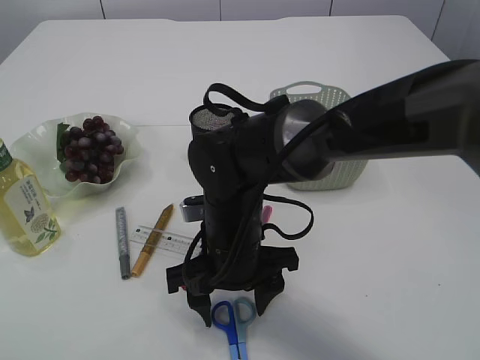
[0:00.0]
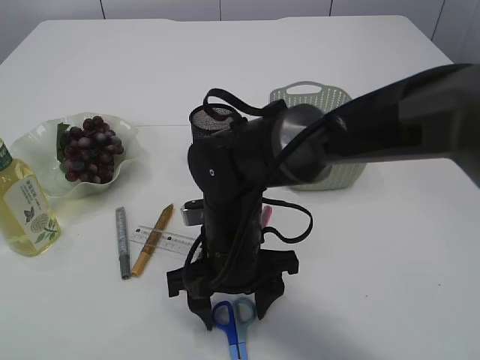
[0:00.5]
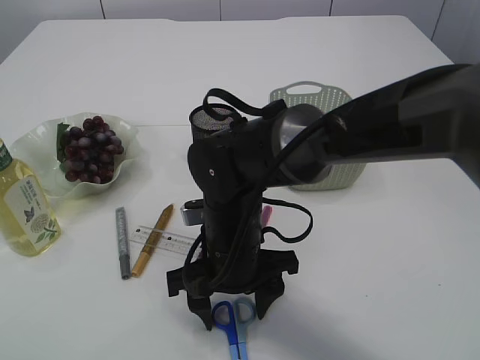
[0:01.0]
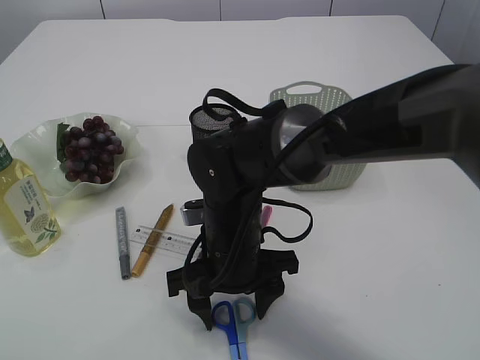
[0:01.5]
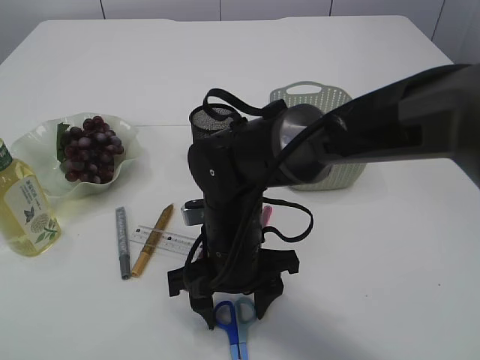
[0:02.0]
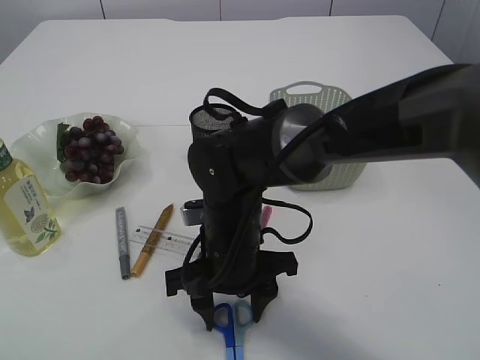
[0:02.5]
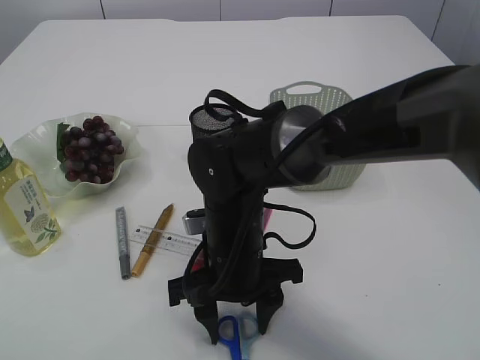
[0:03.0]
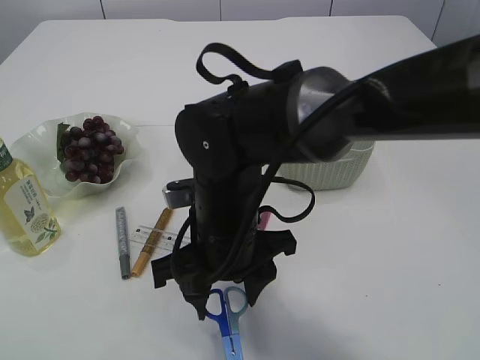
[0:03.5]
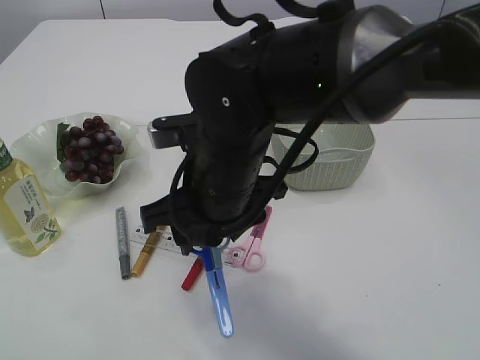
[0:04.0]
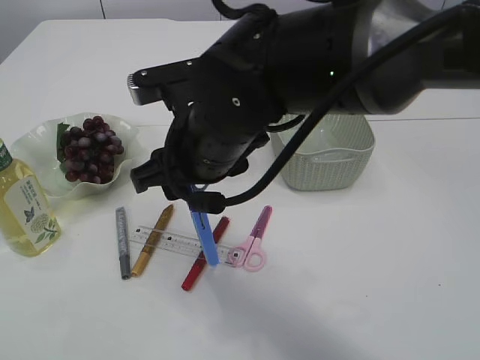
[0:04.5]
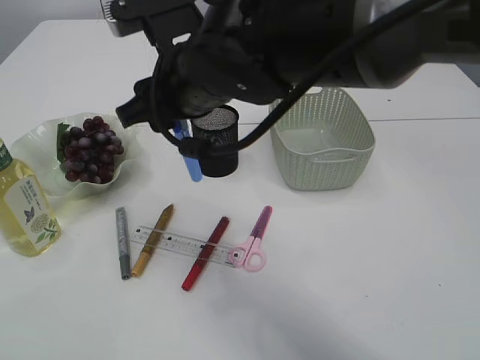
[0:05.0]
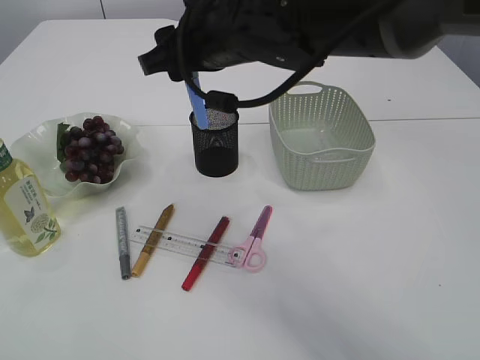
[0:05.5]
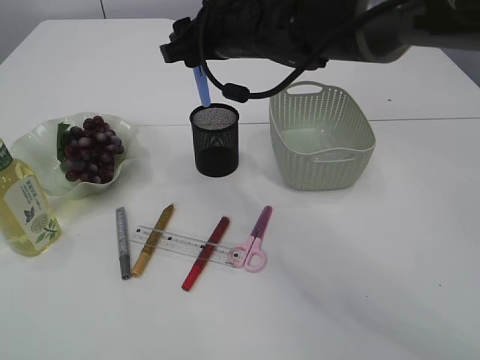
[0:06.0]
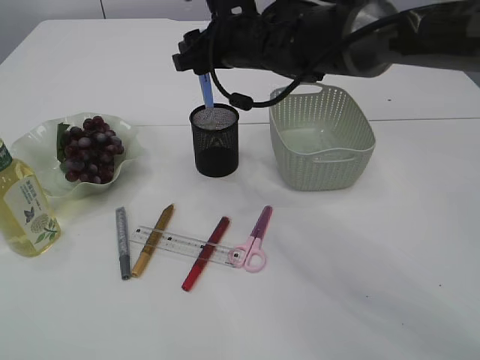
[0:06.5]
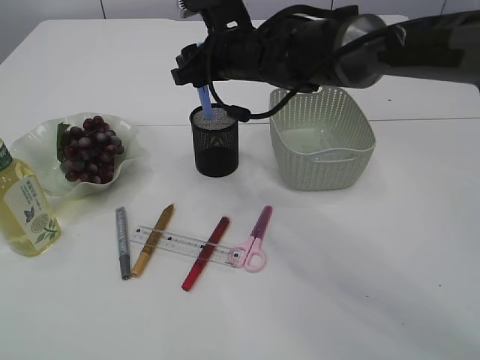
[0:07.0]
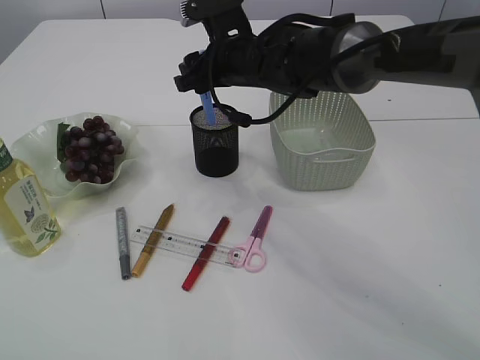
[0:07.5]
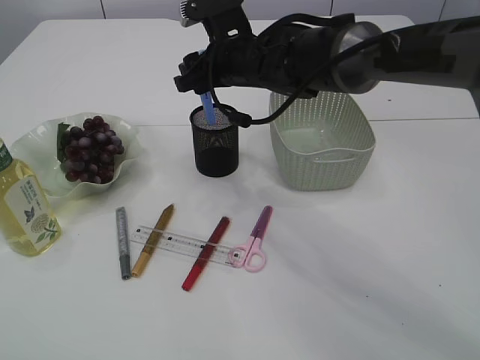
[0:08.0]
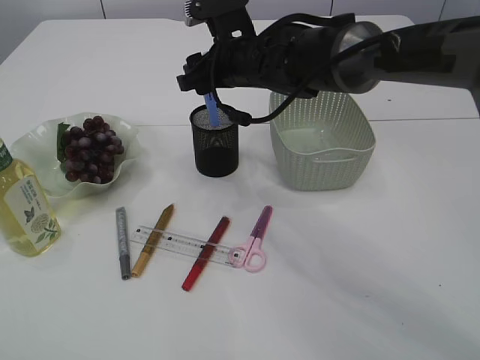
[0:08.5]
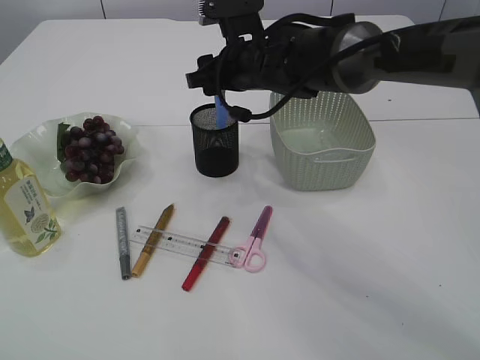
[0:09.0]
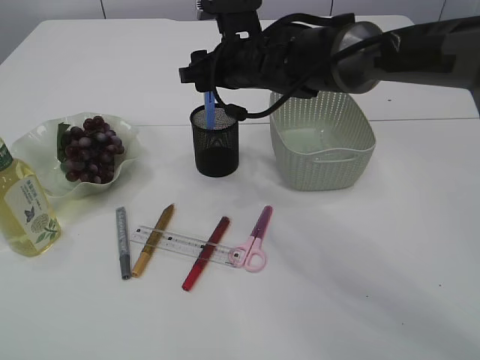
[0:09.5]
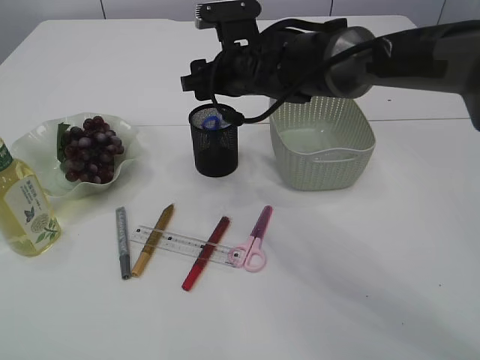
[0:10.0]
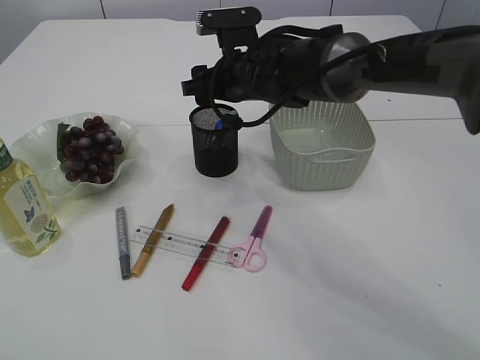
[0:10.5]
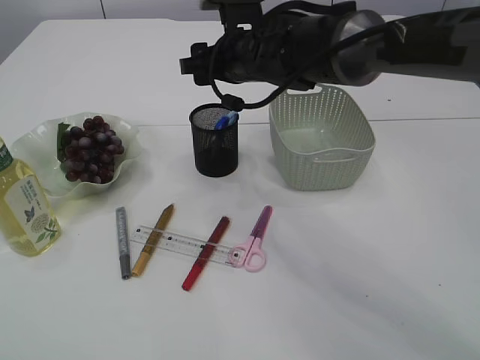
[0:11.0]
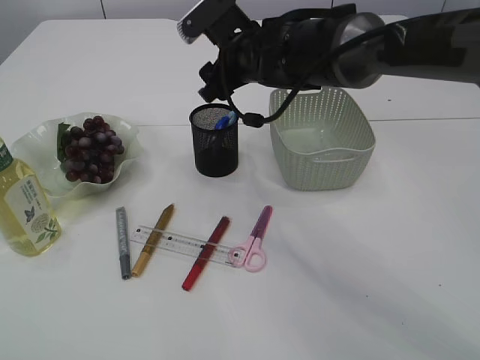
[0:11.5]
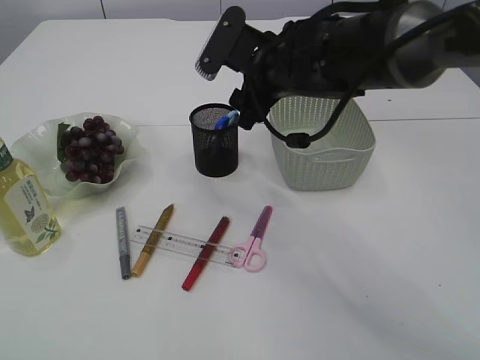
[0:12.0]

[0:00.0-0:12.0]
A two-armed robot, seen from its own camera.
Step, 0:00.0 to 0:03.5: pick up the blue scissors.
Step, 0:04.0 to 0:10.5: Place the blue scissors into the pen holder.
0:00.0 to 0:02.0: The two grippers keep their place.
0:02.0 to 0:04.0: The right gripper travels upward by approximately 10 cm.
0:04.0 to 0:06.0: The right gripper shifts about 15 cm forward and upward.
0:06.0 to 0:08.0: The right gripper travels downward by roughly 5 cm.
0:08.0 to 0:10.0: There are only small adjustments of the grippers.
0:10.0 to 0:12.0: The right gripper moves roughly 5 cm.

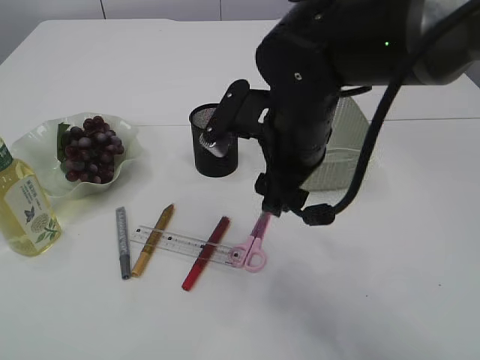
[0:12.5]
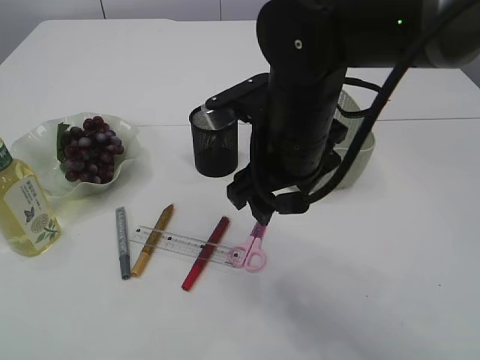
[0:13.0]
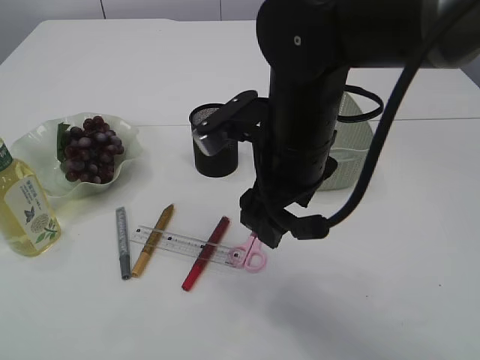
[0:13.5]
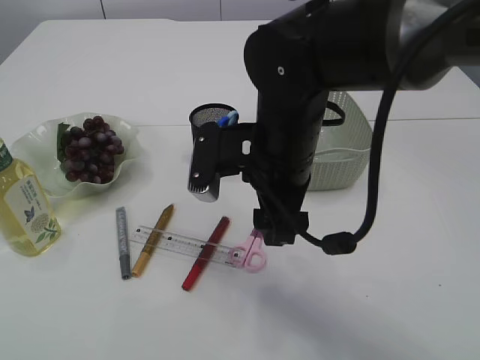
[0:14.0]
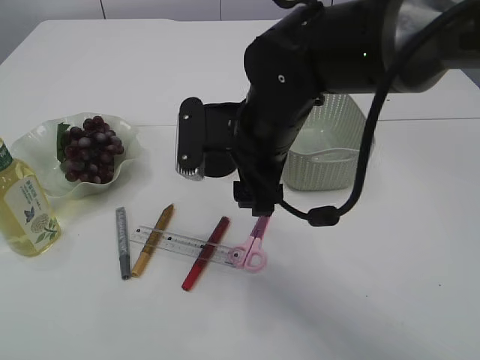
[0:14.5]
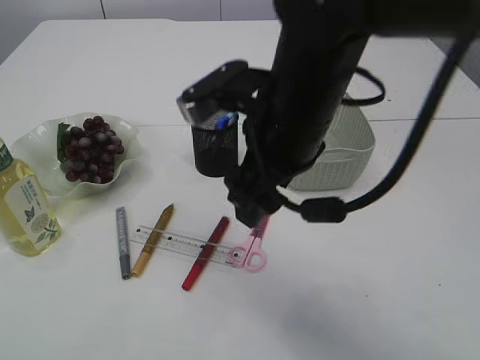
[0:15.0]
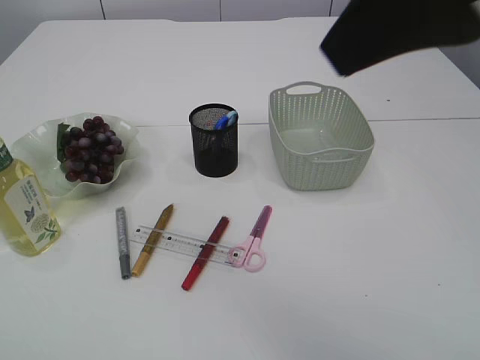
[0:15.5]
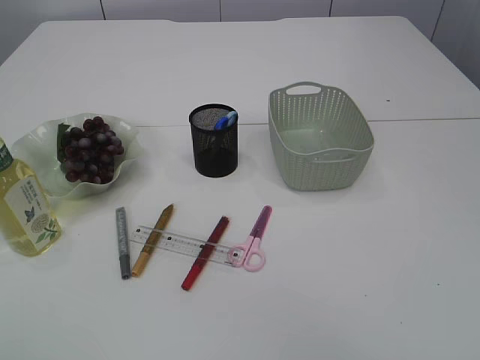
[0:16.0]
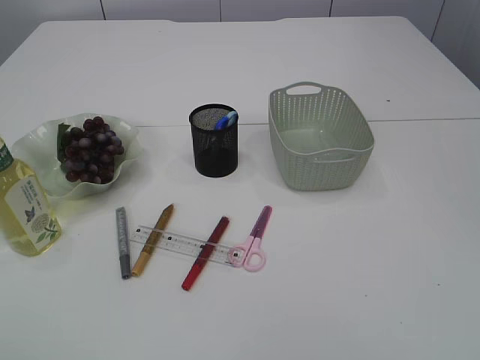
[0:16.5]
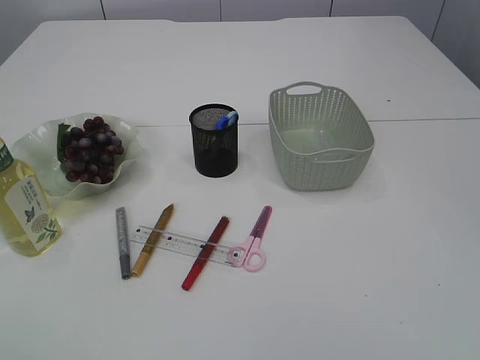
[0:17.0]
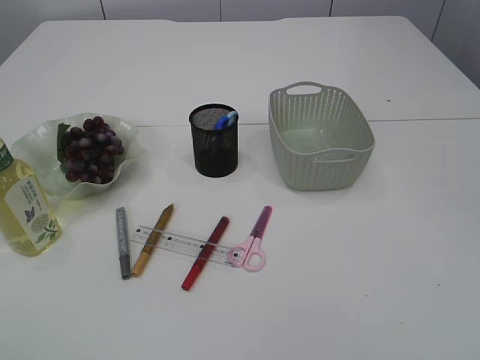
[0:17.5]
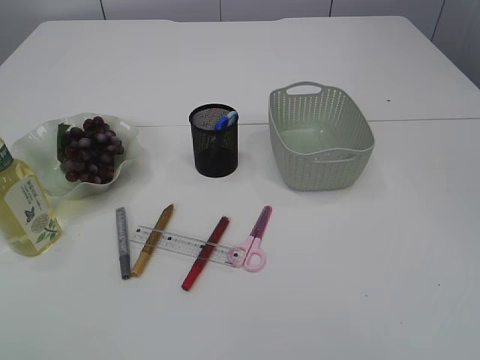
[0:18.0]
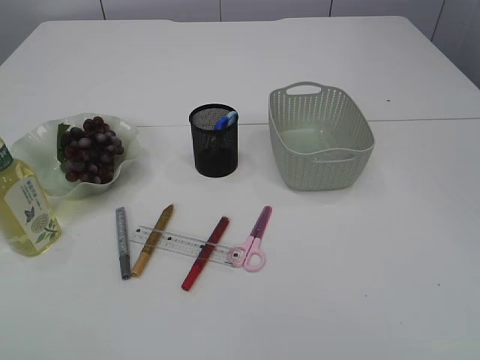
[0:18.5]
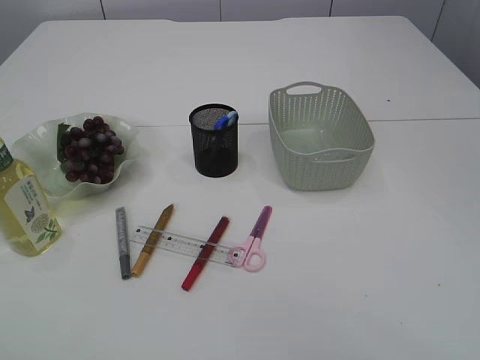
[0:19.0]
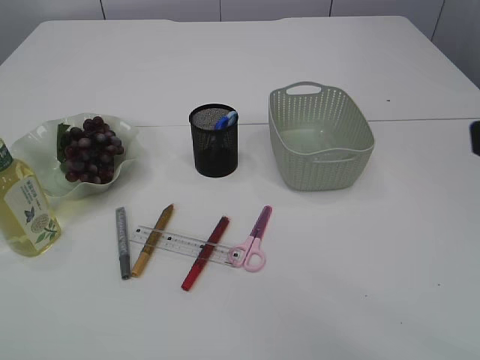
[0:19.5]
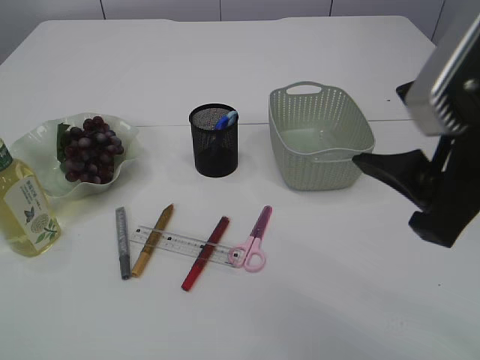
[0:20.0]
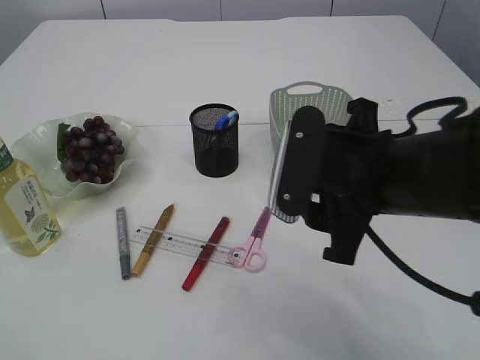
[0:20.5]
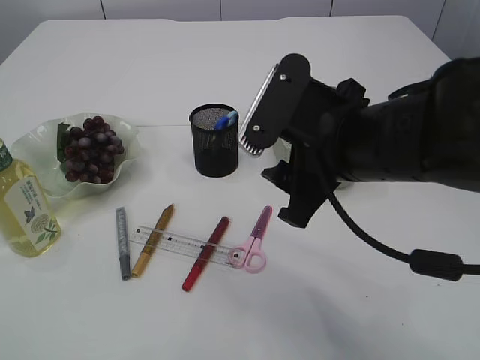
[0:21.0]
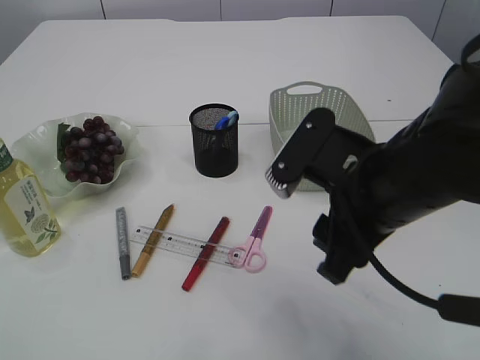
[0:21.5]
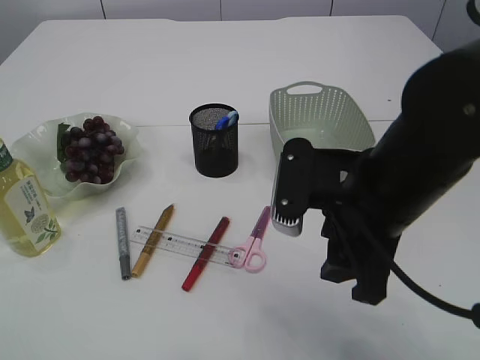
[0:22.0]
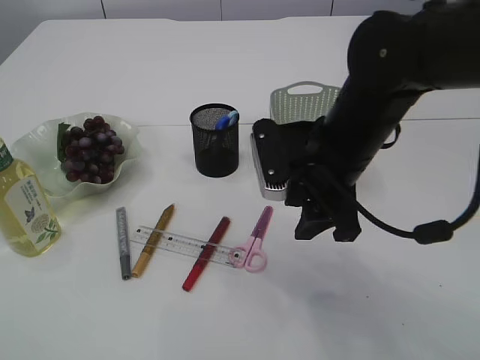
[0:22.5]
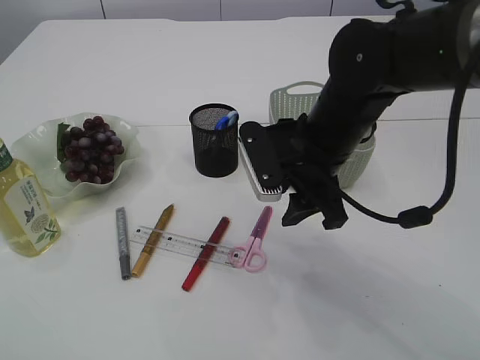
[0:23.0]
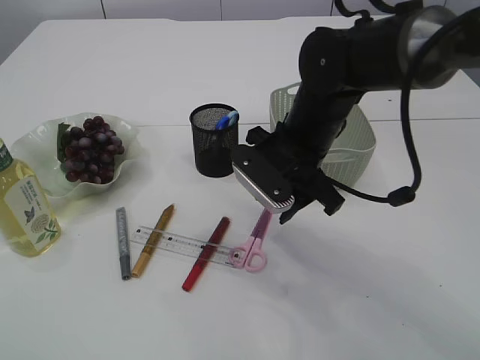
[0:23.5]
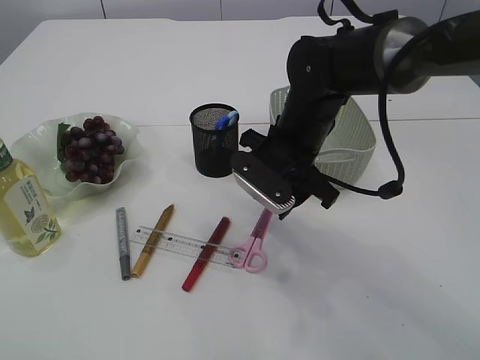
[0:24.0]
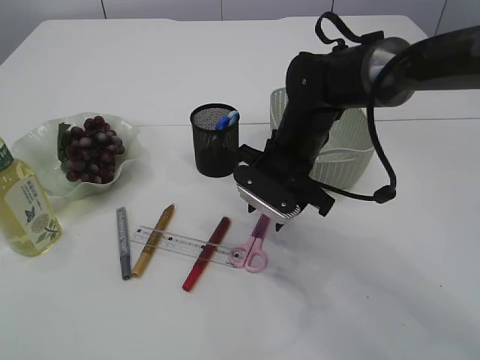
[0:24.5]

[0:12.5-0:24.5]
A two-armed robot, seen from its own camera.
0:14.5 to 0:16.5: The left gripper is displaced backward by approximately 15 cm; the right gripper travels backward, to the right and upward by roughly 40 cm.
0:18.5 to 0:20.5: The right gripper moves forward, to the left and downward, about 30 cm.
0:20.5 to 0:22.5: Both grippers travel together forward, approximately 5 cm.
0:22.5 to 0:24.5: The right gripper travels forward and downward by about 10 cm.

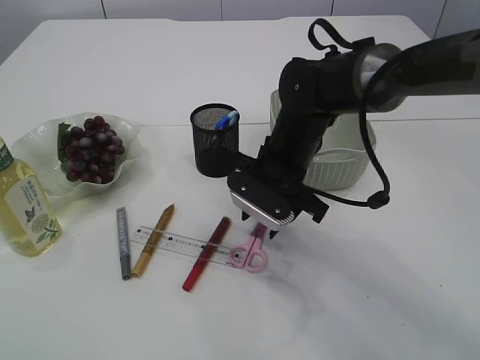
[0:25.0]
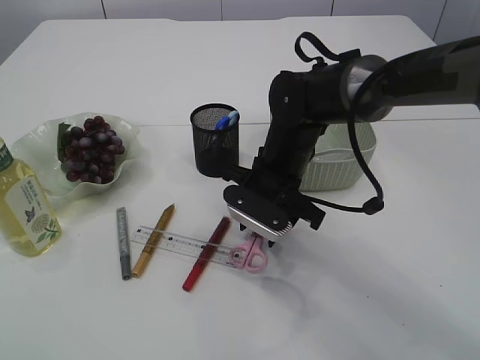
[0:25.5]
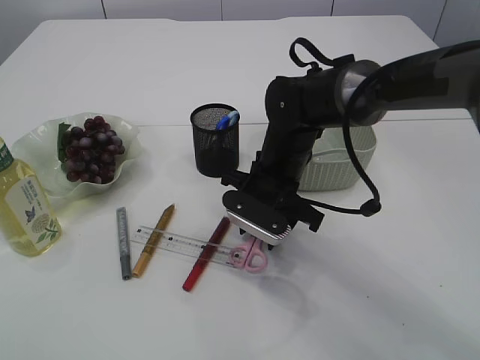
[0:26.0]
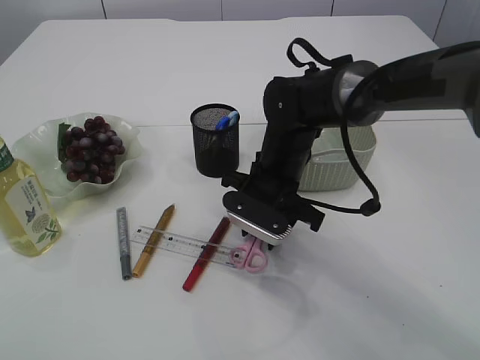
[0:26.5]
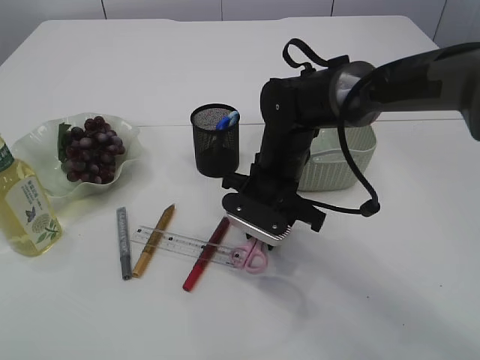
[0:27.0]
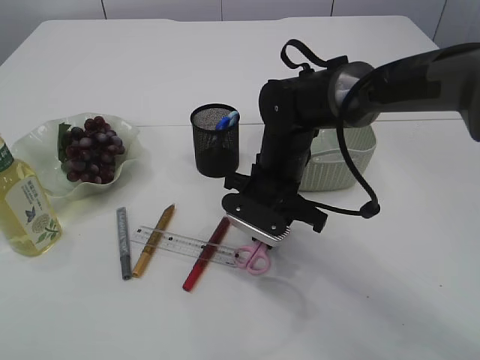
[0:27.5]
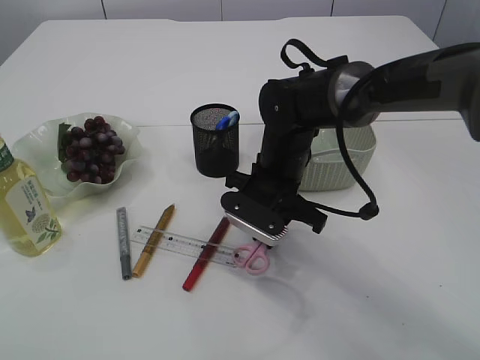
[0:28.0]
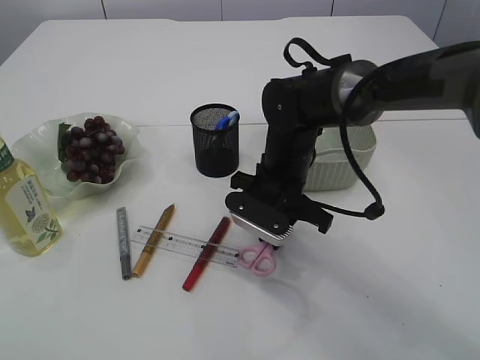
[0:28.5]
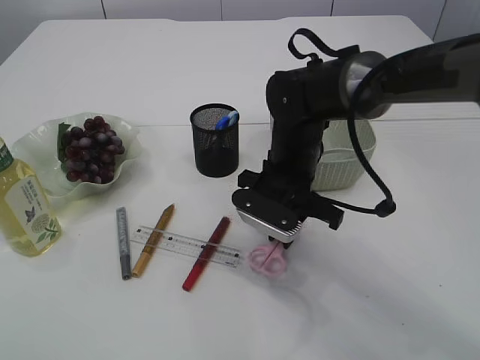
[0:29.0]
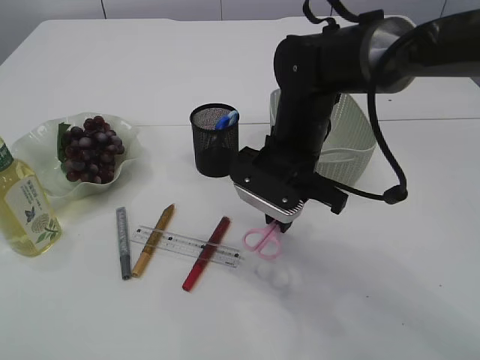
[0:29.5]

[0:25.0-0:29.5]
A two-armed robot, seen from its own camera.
0:25.0 to 0:27.0: The grippers move only a little.
0:27.0 to 0:29.5: The right gripper moves upward, some 5 cm.
